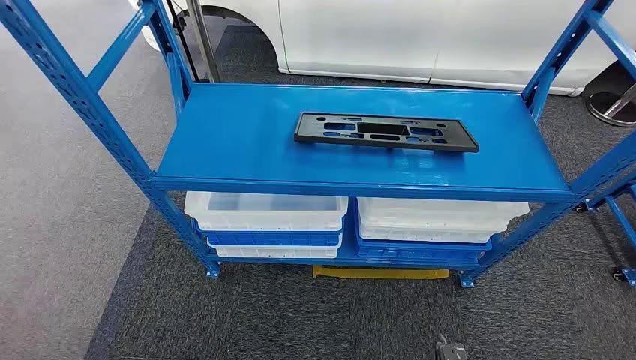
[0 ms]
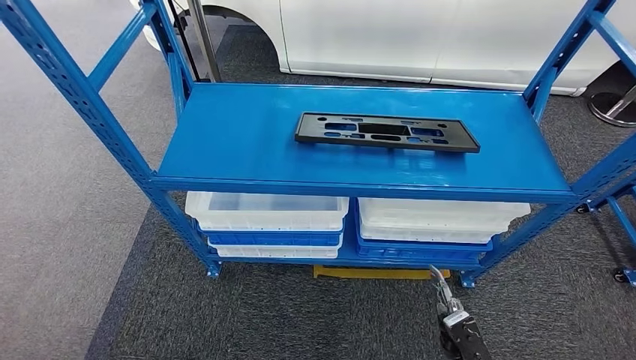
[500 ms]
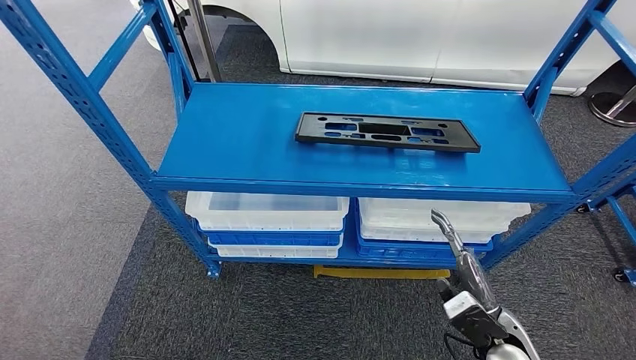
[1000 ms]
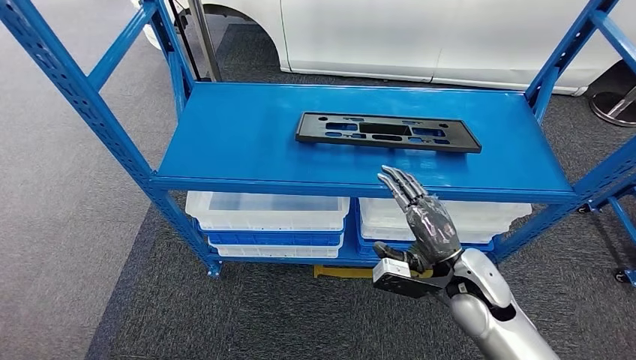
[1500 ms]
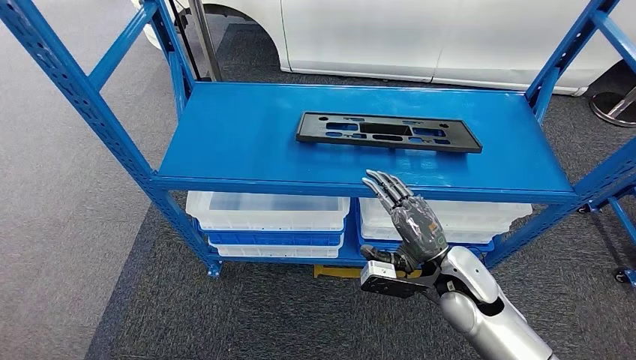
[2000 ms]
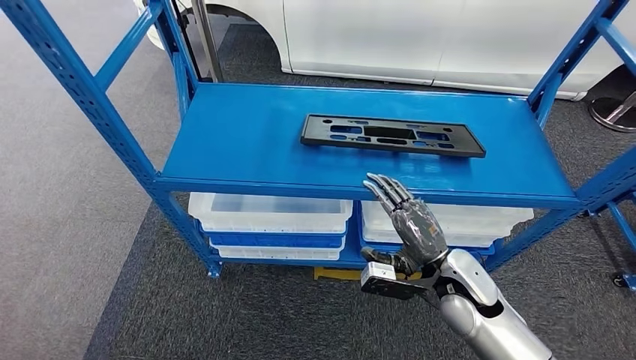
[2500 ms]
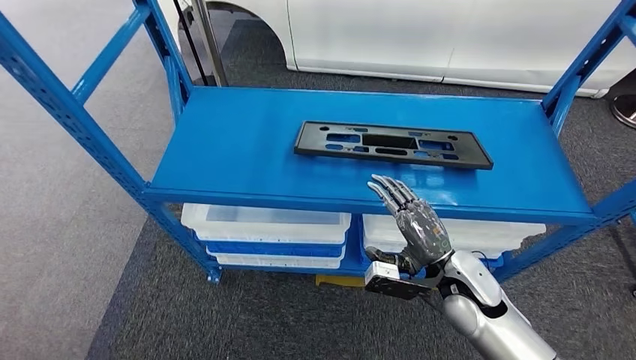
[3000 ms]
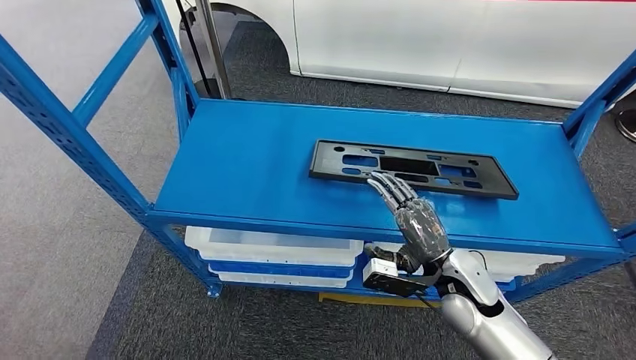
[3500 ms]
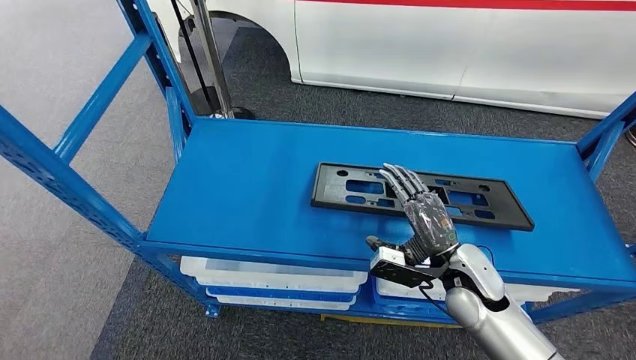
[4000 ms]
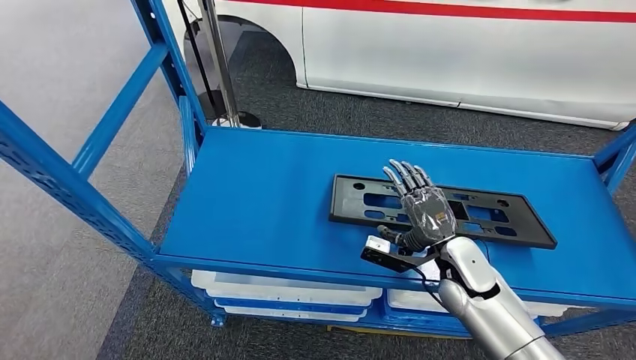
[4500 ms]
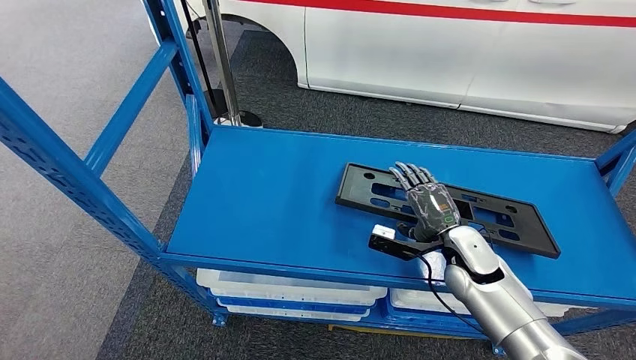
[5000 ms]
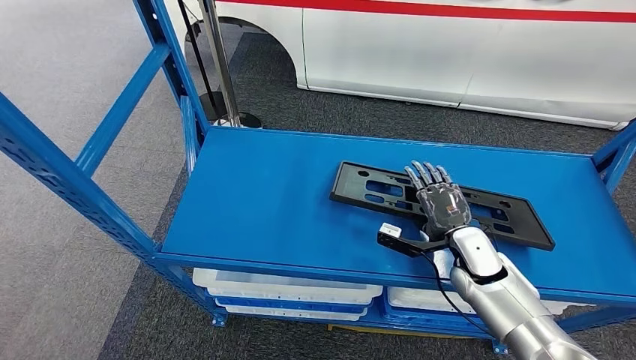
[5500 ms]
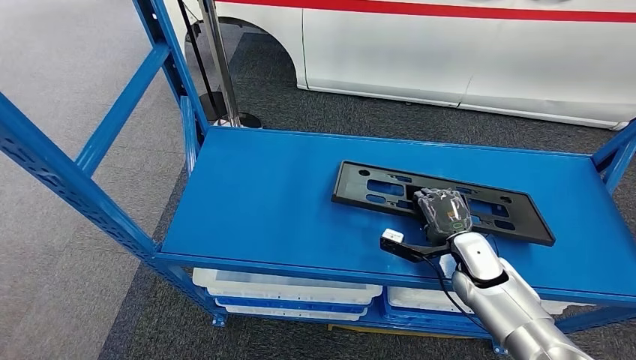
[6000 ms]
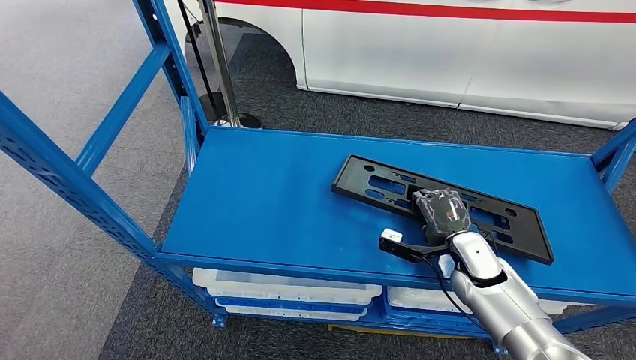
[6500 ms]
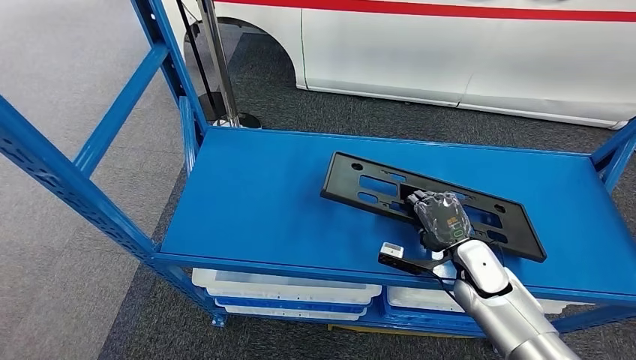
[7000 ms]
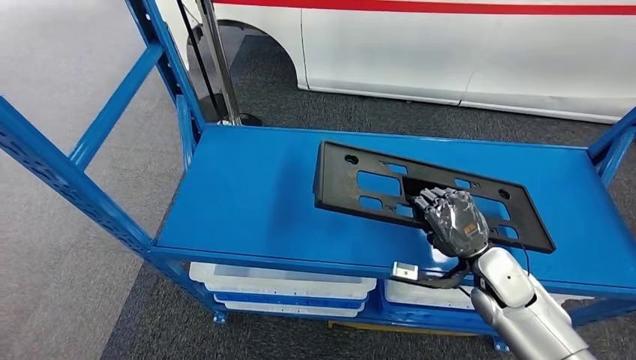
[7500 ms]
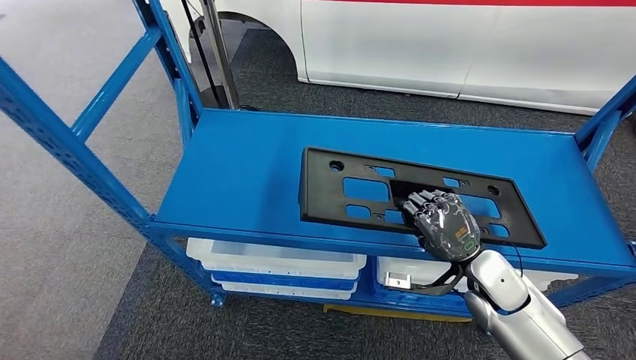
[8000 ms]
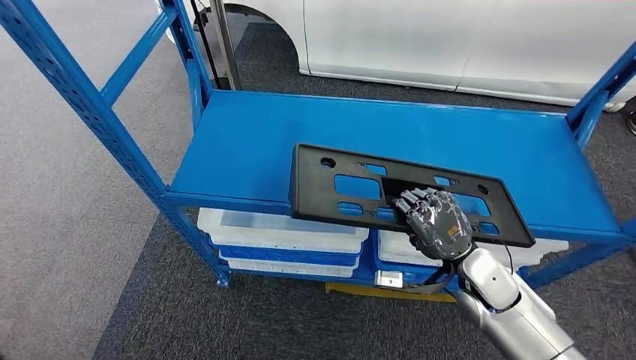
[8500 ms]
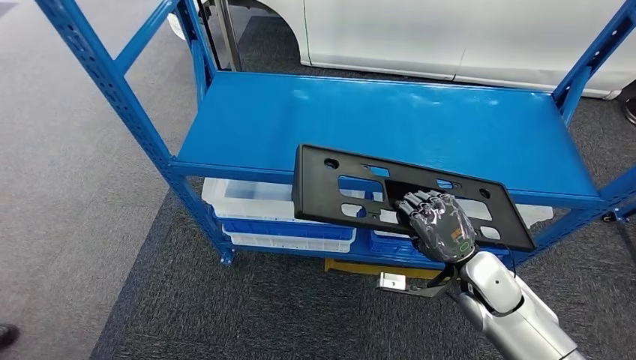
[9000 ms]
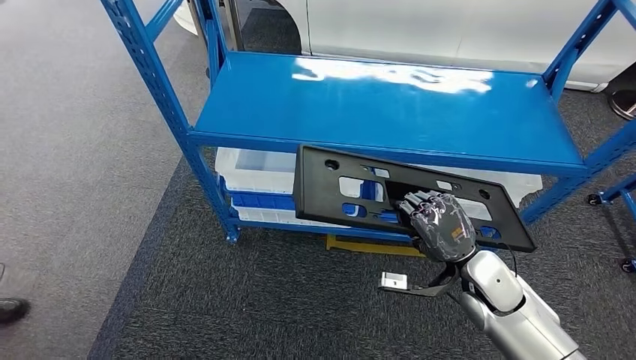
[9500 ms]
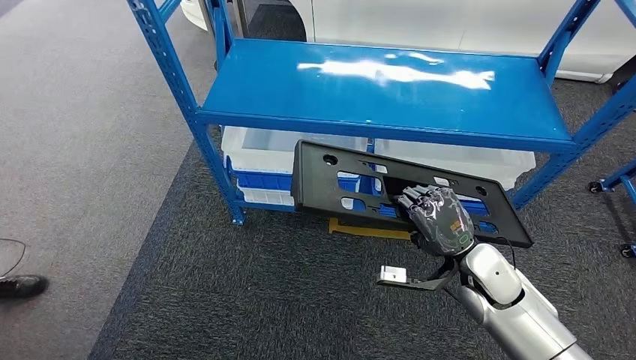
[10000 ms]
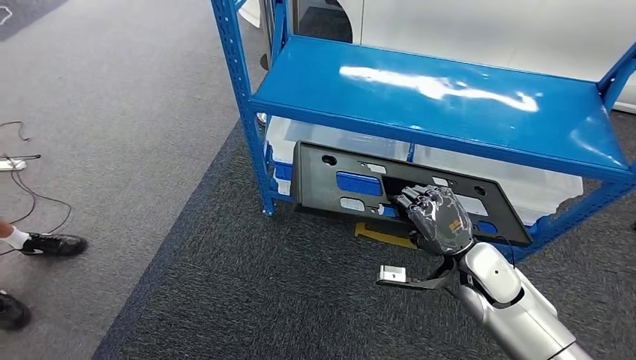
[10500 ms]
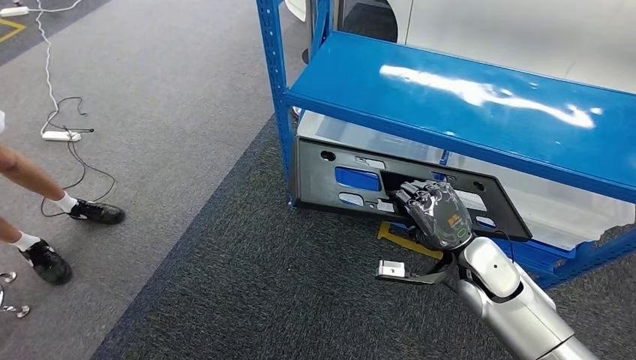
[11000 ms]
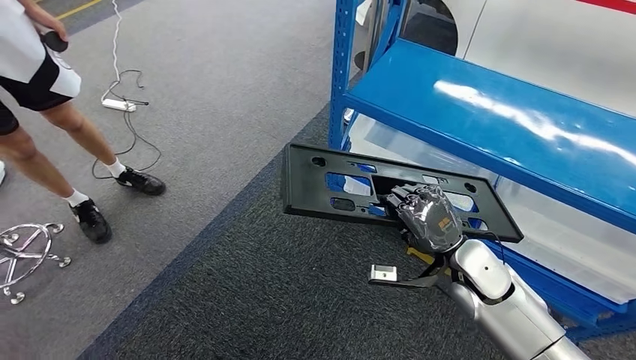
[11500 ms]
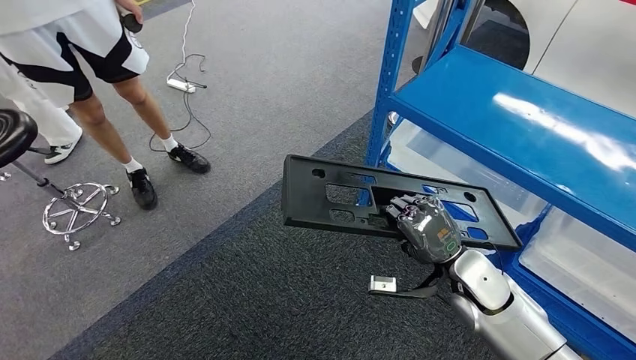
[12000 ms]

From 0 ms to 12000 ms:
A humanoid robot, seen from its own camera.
Step, from 0 ms to 9000 ms: Pick up the large material from the shelf.

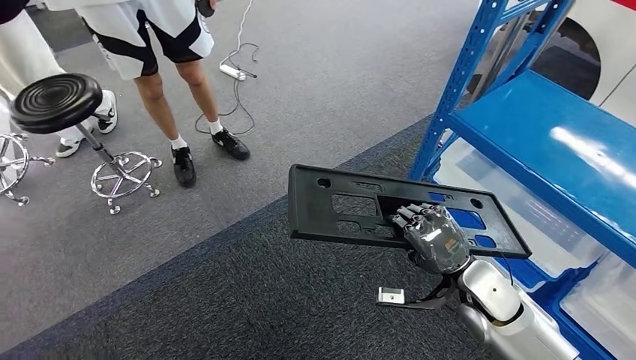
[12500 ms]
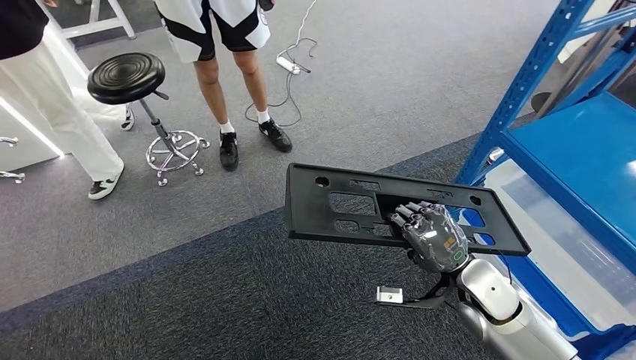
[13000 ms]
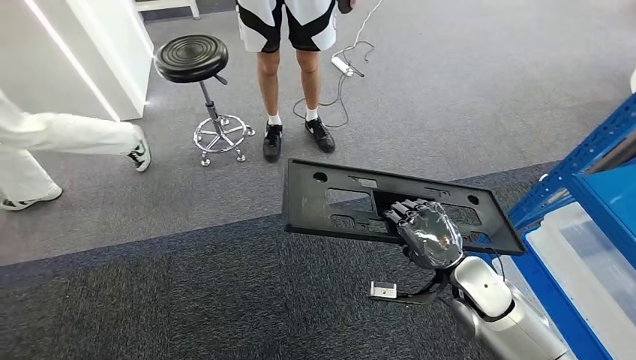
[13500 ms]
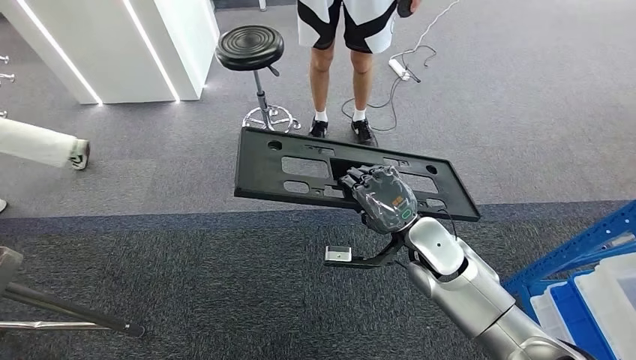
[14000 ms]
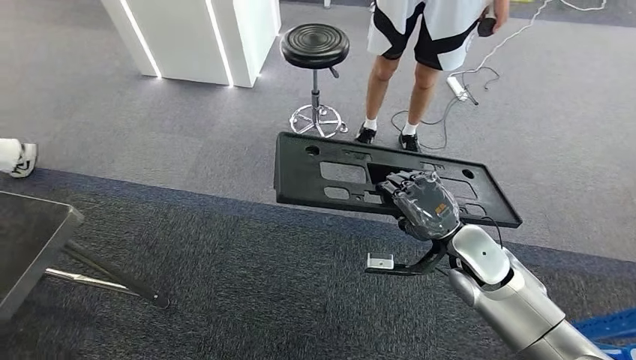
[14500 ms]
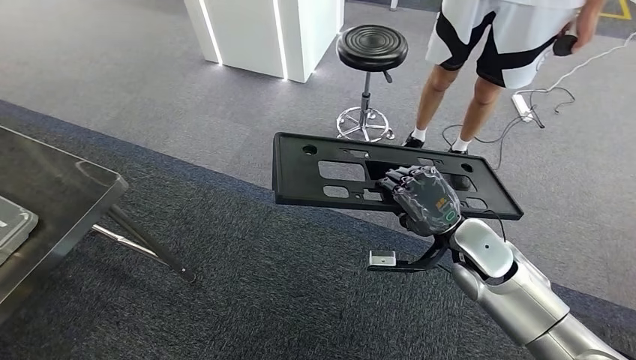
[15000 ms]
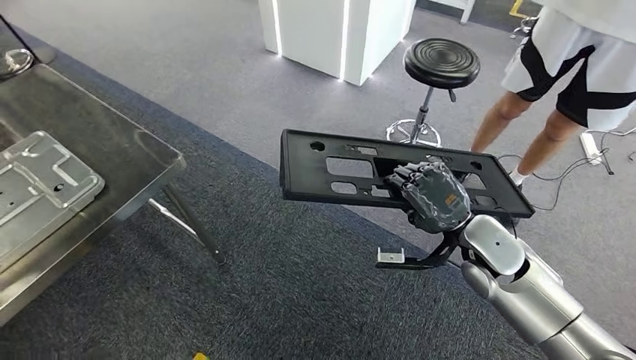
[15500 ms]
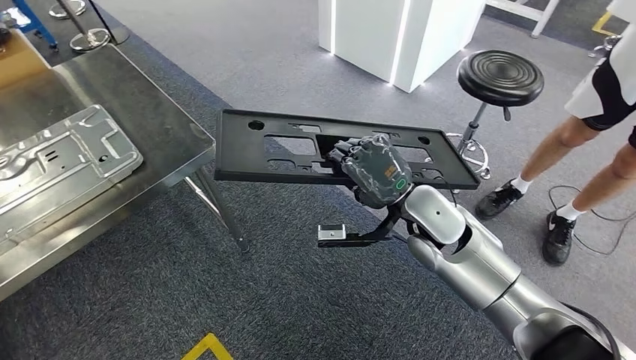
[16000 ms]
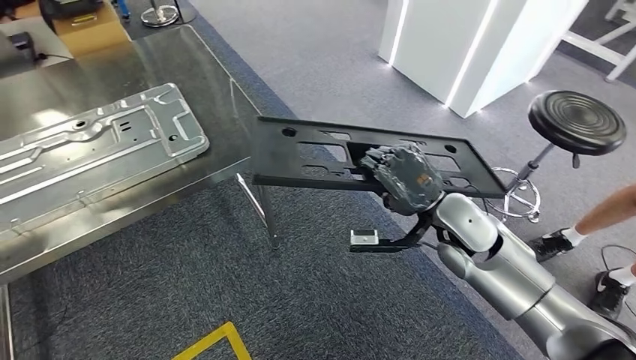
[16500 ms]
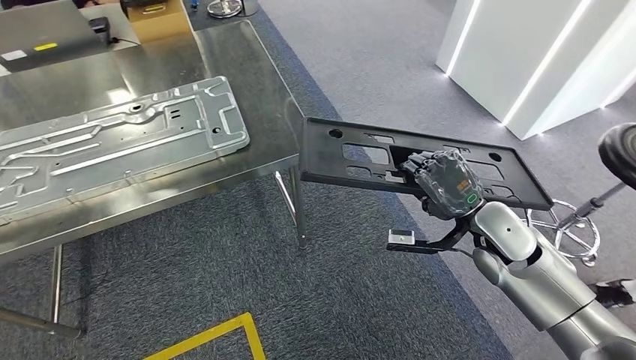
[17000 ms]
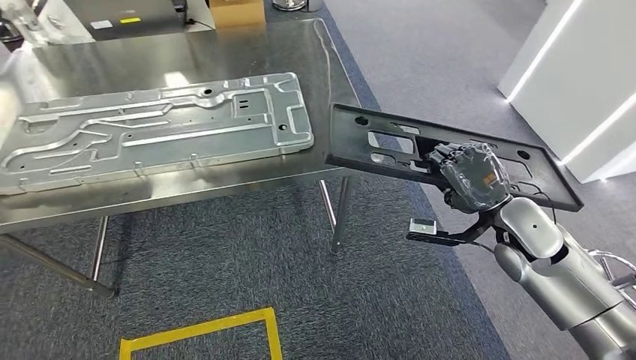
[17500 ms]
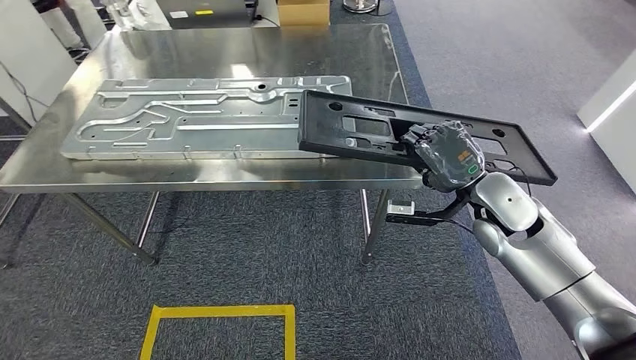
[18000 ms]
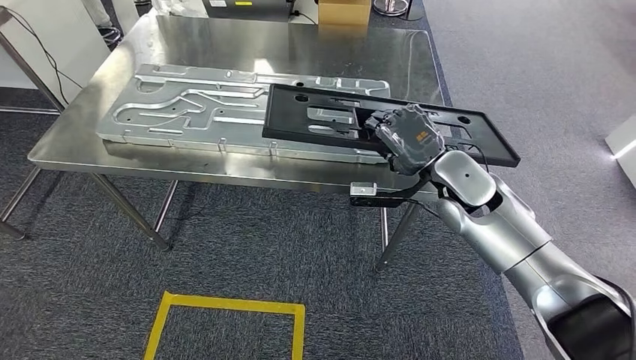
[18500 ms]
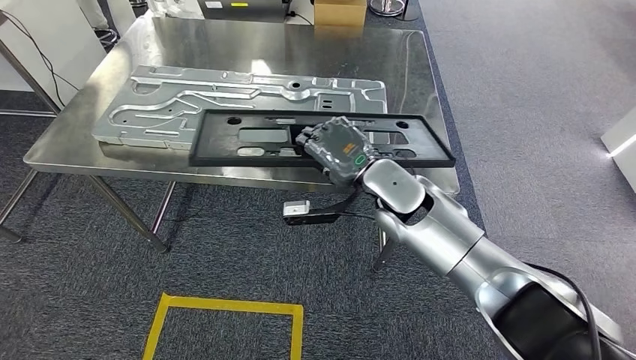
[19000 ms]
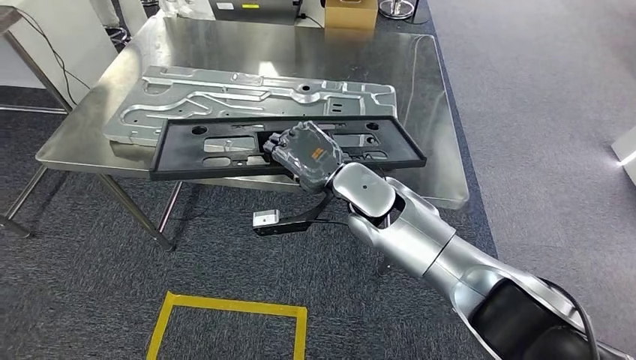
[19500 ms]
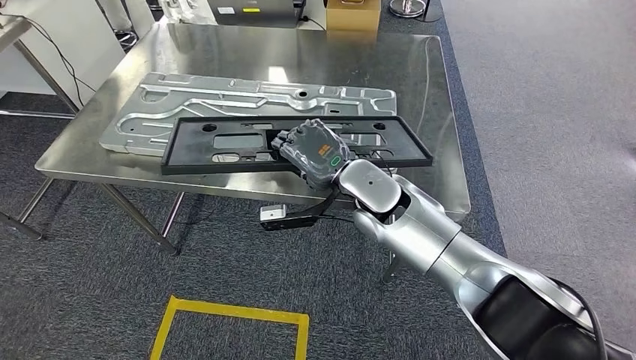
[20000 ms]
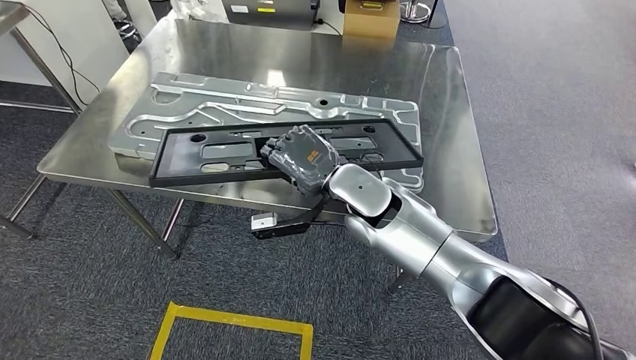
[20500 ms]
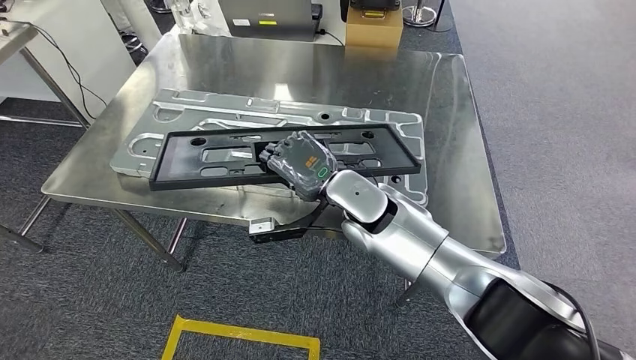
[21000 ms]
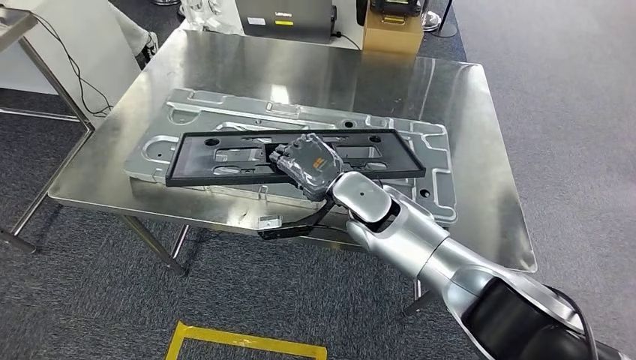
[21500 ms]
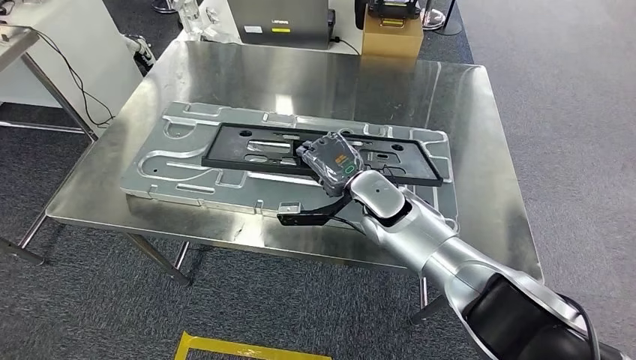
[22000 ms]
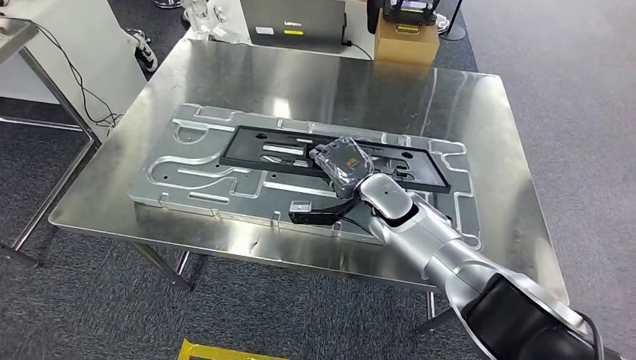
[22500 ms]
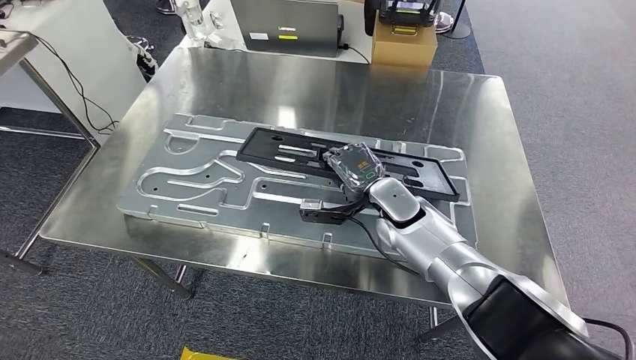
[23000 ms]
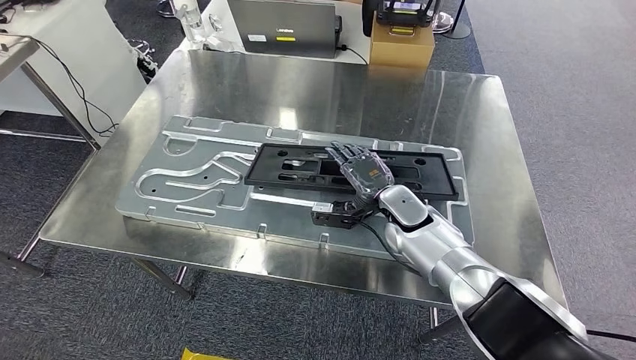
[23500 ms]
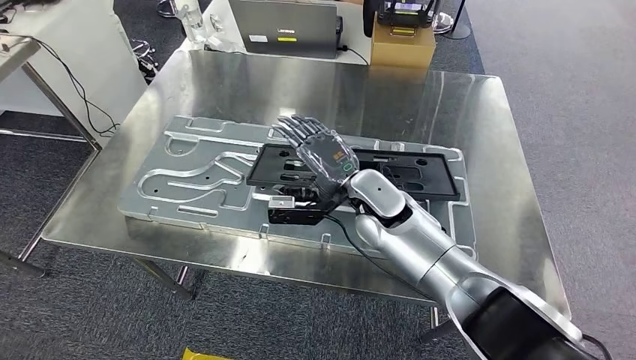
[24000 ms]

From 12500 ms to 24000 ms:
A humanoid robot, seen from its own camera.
Step, from 12500 ms to 19000 ms: Move the large material to the workbench.
